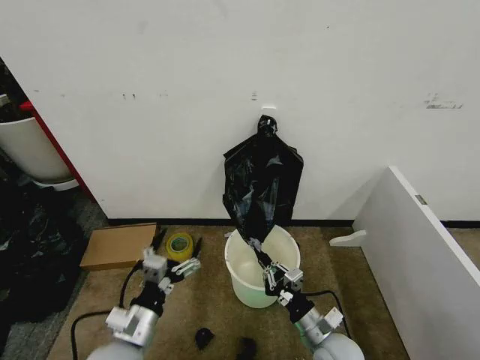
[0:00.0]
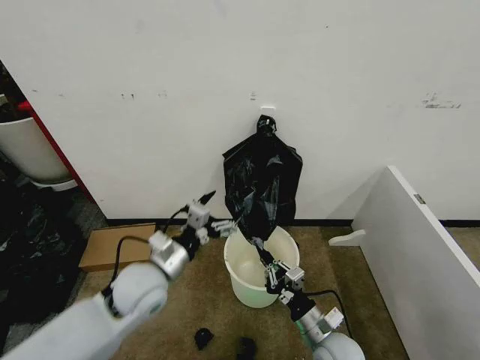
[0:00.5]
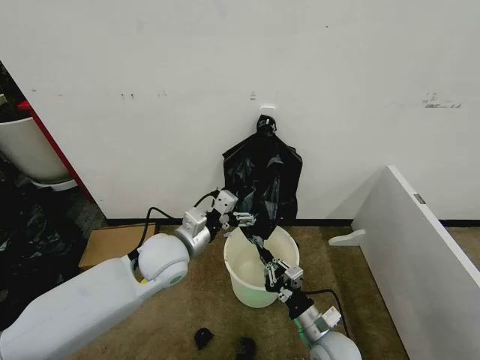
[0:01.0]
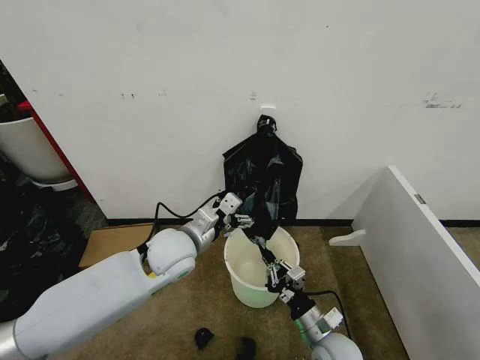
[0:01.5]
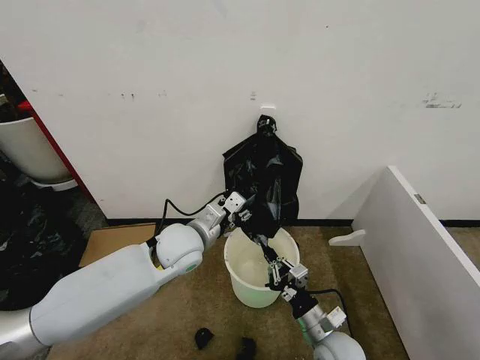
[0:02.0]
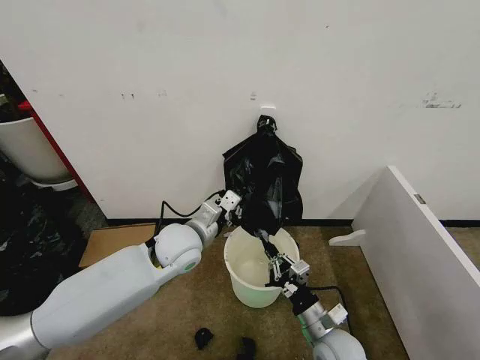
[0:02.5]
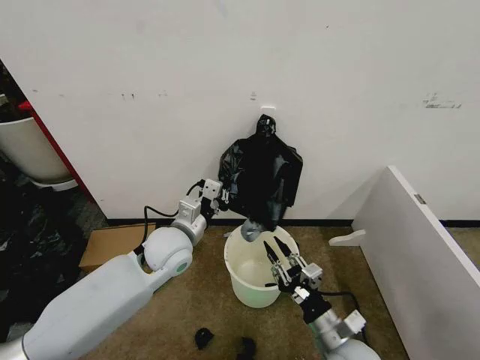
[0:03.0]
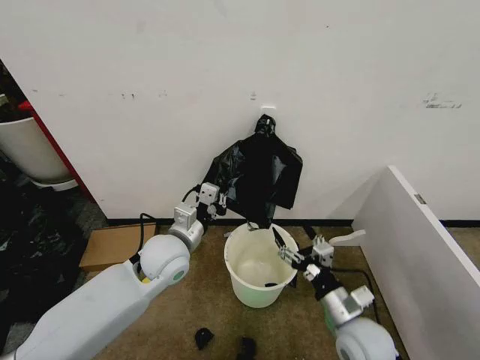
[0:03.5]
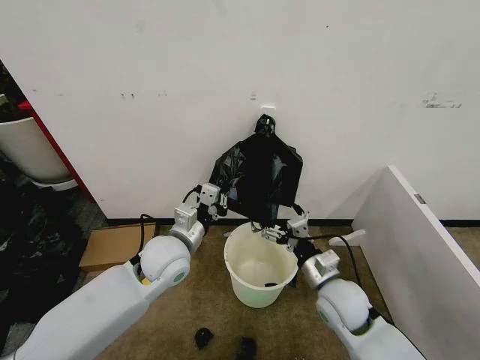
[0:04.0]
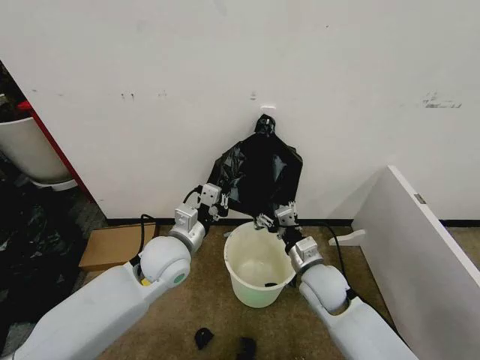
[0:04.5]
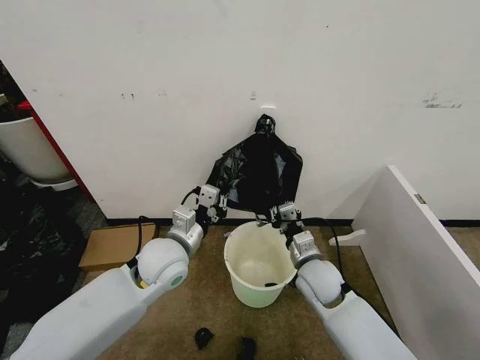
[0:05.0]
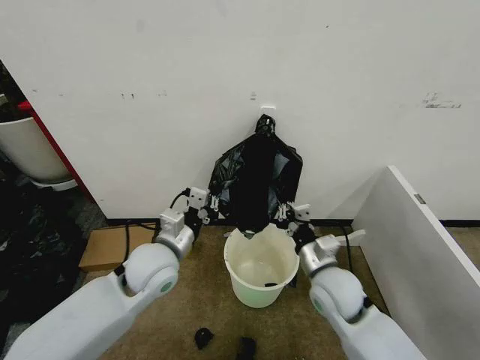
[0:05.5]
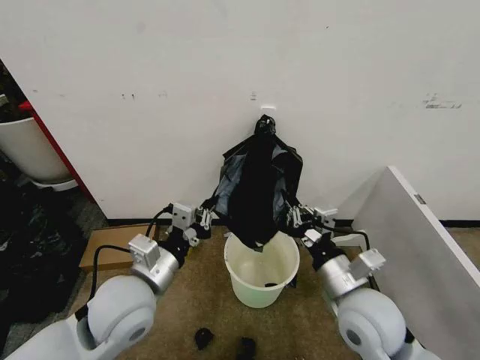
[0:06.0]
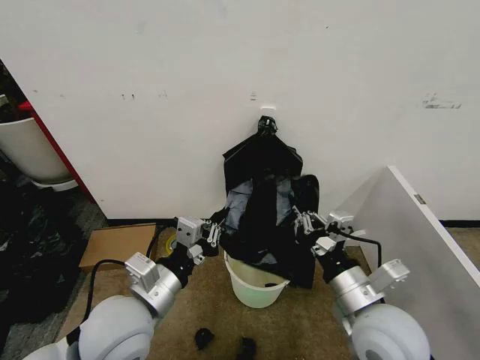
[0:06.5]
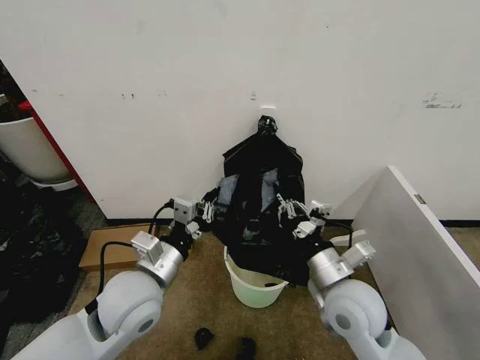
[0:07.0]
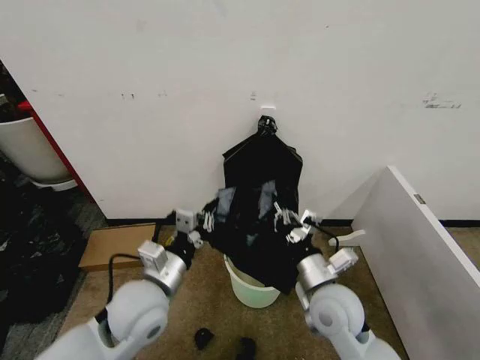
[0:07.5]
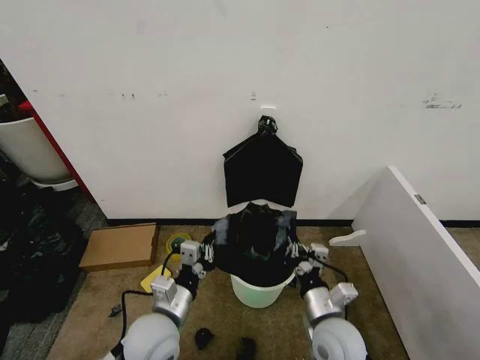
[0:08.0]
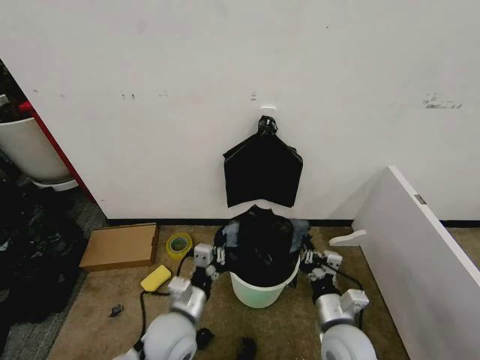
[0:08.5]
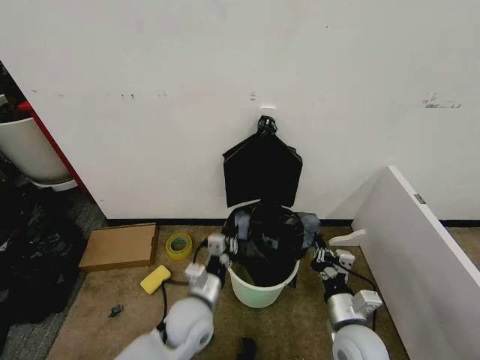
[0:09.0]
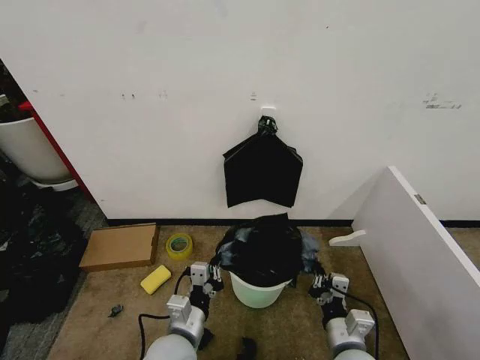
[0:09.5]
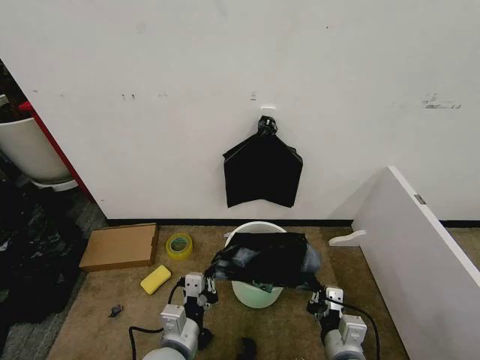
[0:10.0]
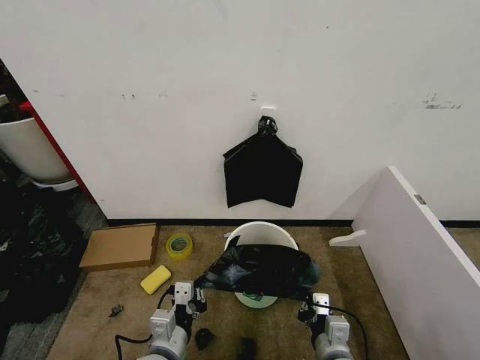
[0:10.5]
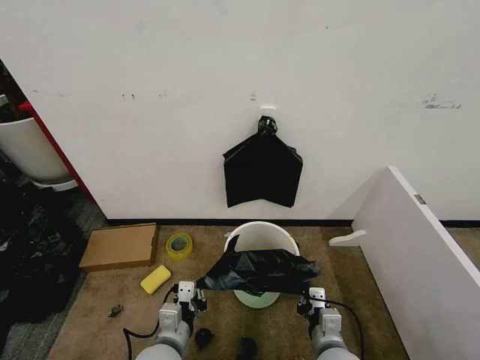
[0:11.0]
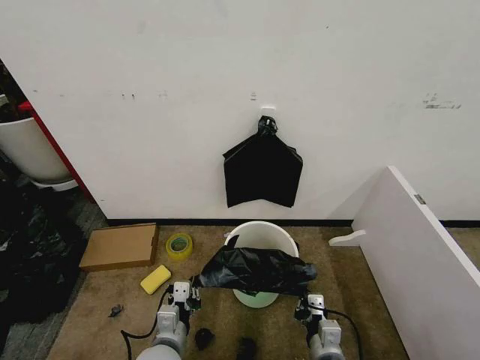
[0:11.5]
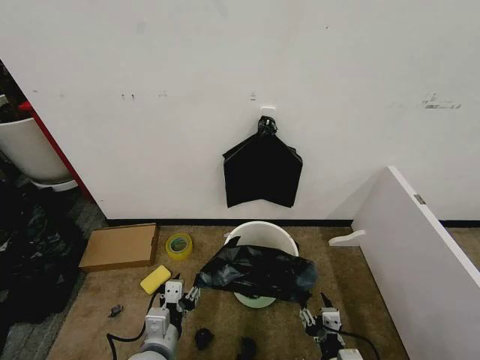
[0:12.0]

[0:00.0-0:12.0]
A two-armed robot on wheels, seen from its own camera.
Task of the whole recording: Place the garbage bag over the trash bin.
0:00.0 to 0:02.0: The left gripper travels forward and to the right by about 20 cm, and closes its fingers.
0:02.0 to 0:04.0: The left gripper closes up. The right gripper shifts about 10 cm upward and forward, and opens.
0:04.0 to 0:06.0: The right gripper moves upward, some 10 cm, and closes its fingers. The left gripper moves backward, about 10 cm.
0:06.0 to 0:08.0: The two grippers go roughly 10 cm downward.
0:08.0 to 0:10.0: The grippers both shift backward by some 5 cm.
0:10.0 to 0:12.0: The right gripper is displaced downward by approximately 5 cm, and opens its fingers; the left gripper opens.

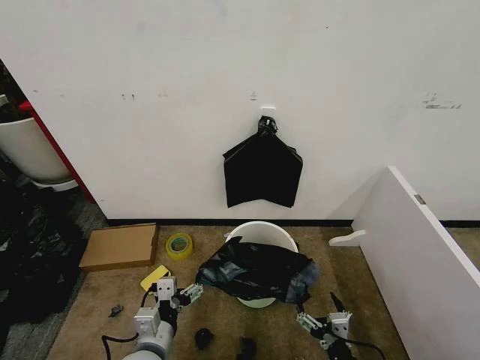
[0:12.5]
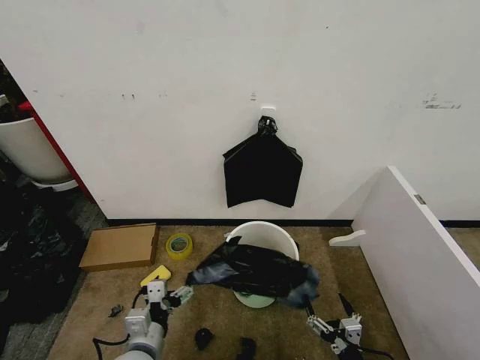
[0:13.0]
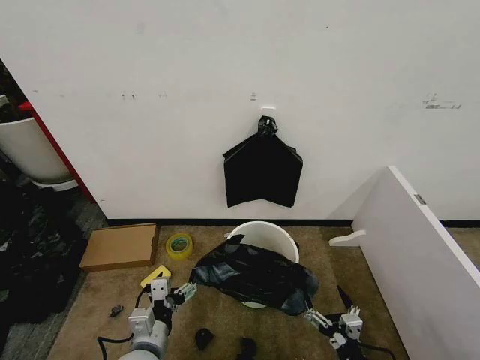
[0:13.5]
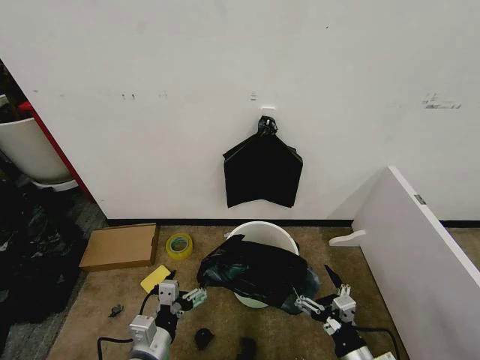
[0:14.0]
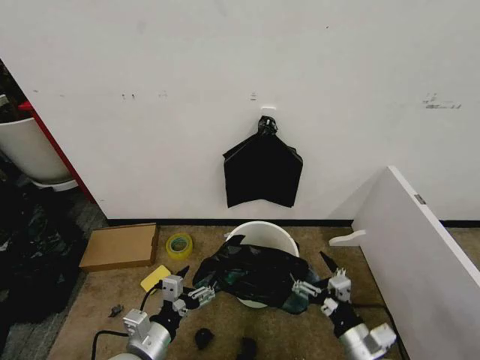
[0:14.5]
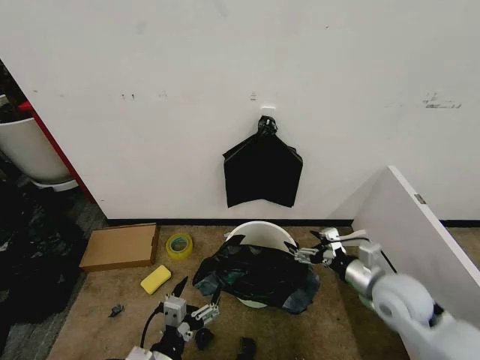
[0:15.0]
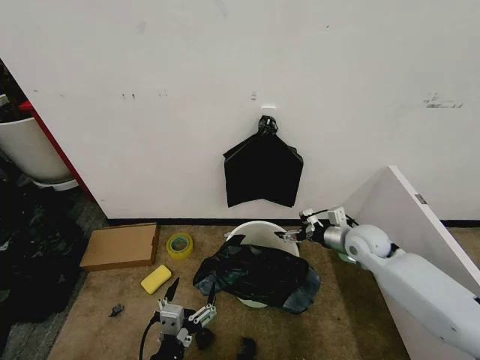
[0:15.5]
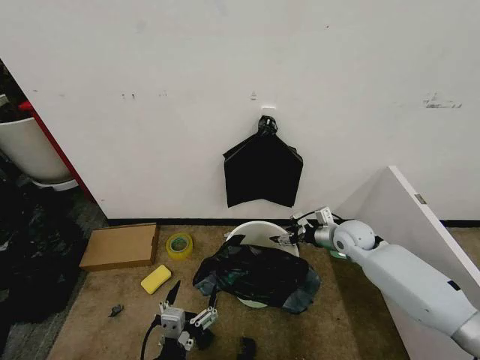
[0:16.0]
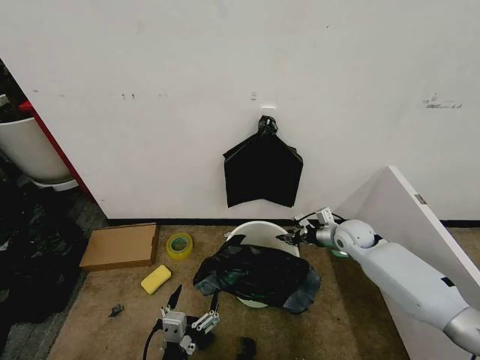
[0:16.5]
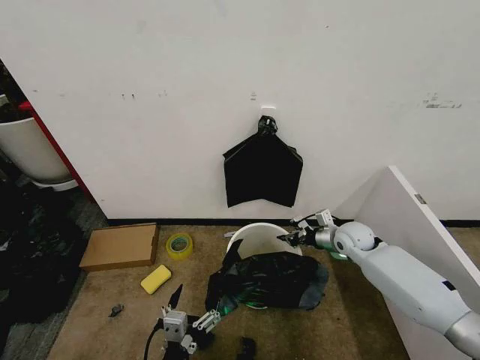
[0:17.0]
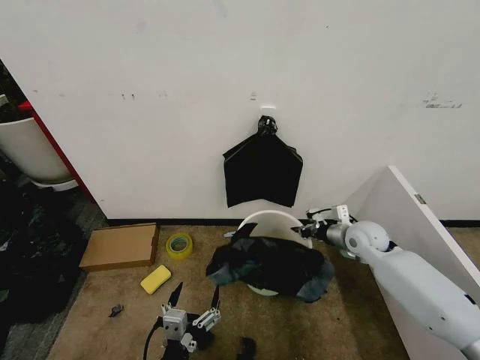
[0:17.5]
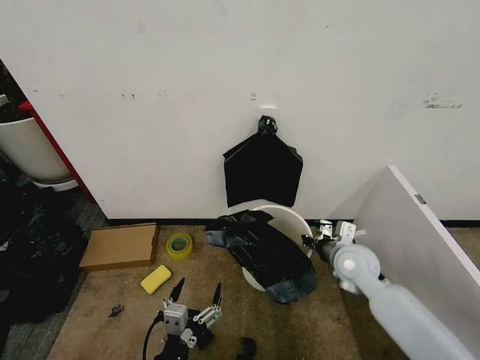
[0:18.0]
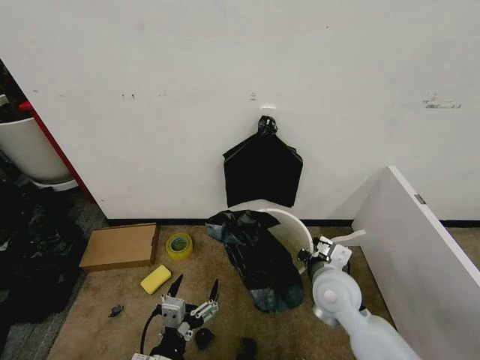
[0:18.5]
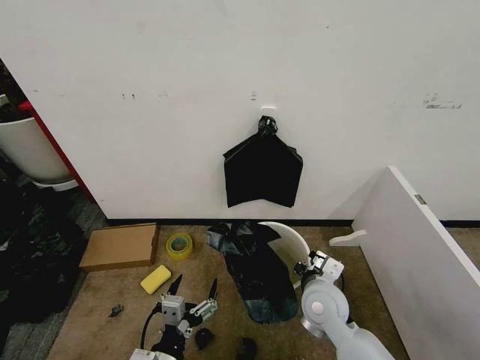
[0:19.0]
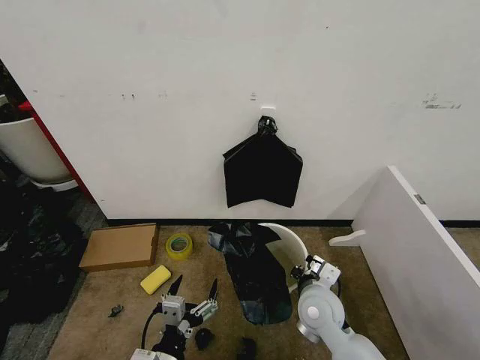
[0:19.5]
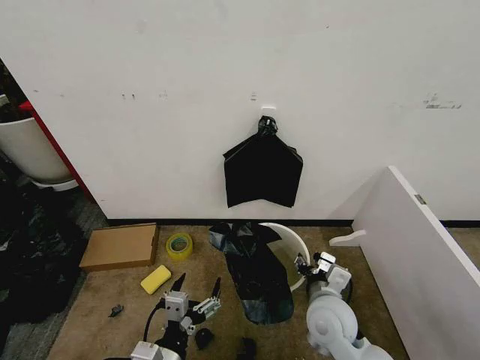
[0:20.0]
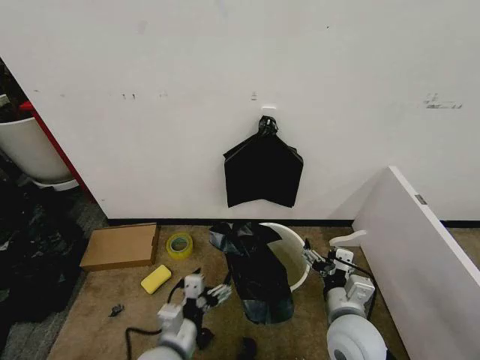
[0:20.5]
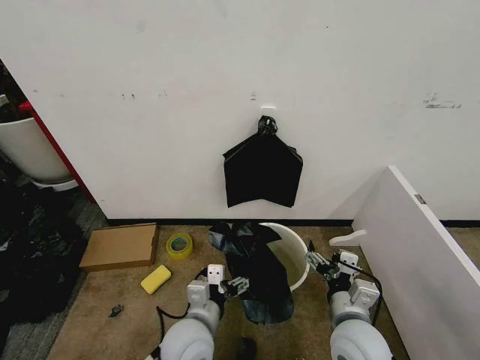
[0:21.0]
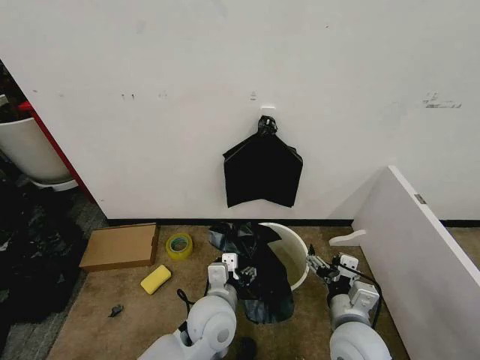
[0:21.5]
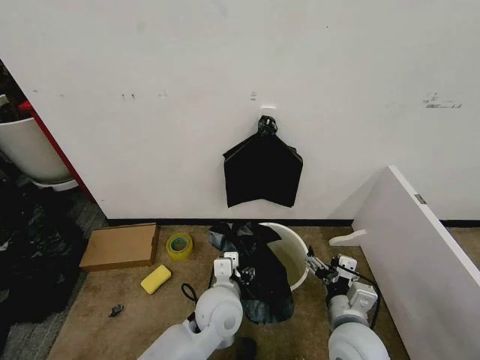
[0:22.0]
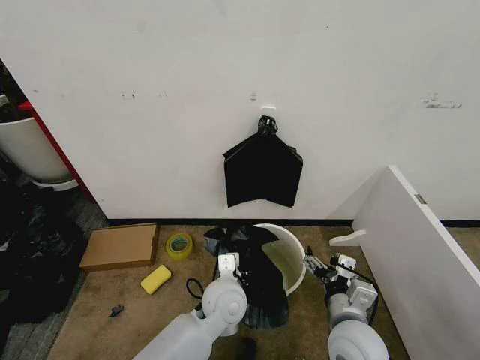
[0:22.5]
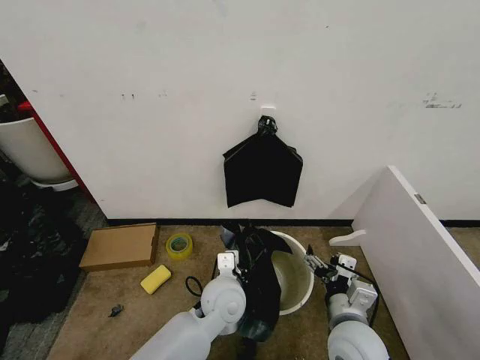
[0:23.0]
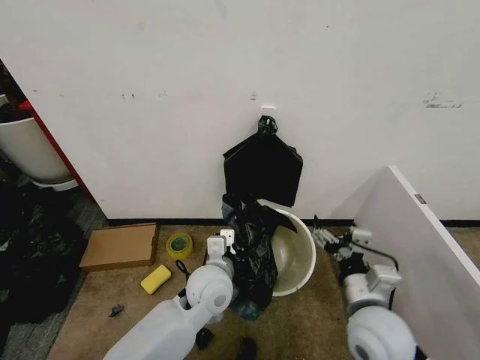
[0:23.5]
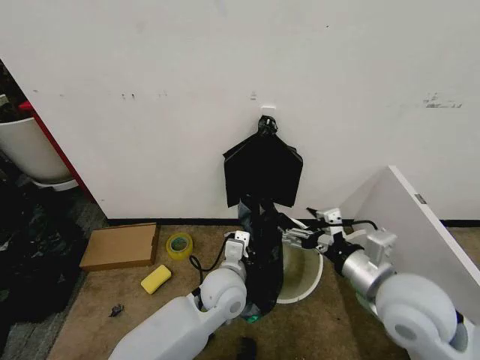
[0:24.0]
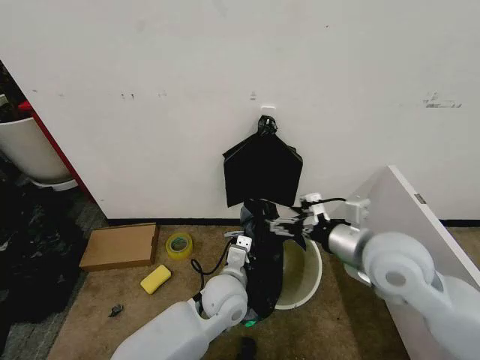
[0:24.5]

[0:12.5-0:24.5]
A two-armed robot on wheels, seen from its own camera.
Task of the whole recording: Place the garbage bag over the trash bin.
0:12.5 to 0:14.5: The right gripper shifts roughly 5 cm upward.
0:14.5 to 0:16.5: The left gripper is displaced backward and to the right by roughly 10 cm. Meanwhile the right gripper shifts some 35 cm forward, and closes its fingers.
0:16.5 to 0:18.5: The right gripper is displaced backward and to the left by roughly 20 cm.
0:18.5 to 0:20.5: The left gripper is displaced forward by some 5 cm, while the right gripper heads backward, covering some 10 cm, and opens its fingers.
0:20.5 to 0:22.5: The left gripper heads forward and to the right, covering approximately 20 cm, and closes.
0:22.5 to 0:24.5: The right gripper goes approximately 20 cm upward and forward.

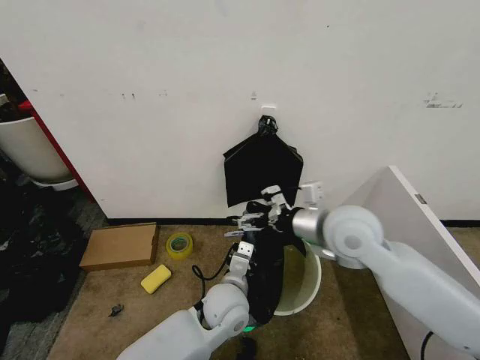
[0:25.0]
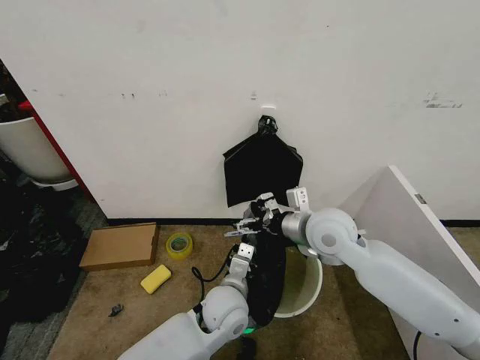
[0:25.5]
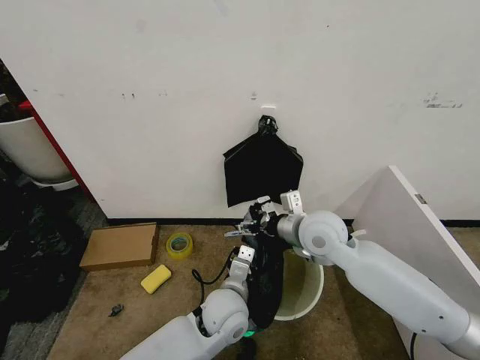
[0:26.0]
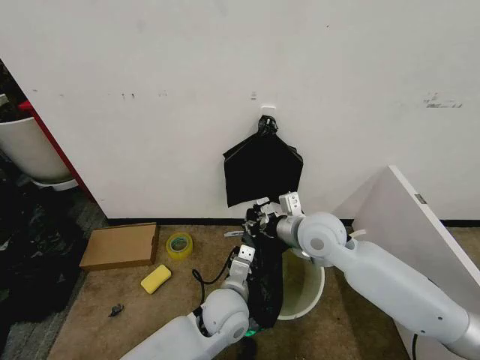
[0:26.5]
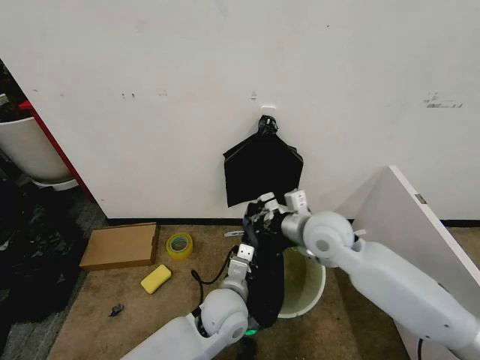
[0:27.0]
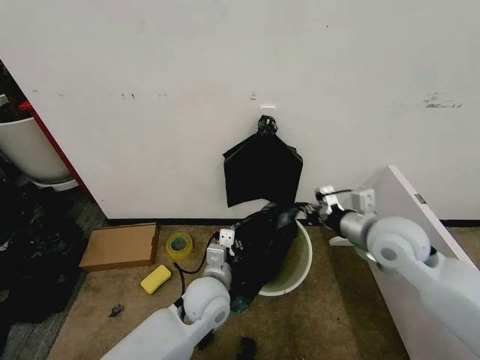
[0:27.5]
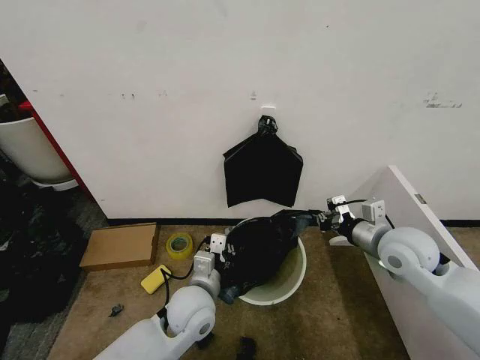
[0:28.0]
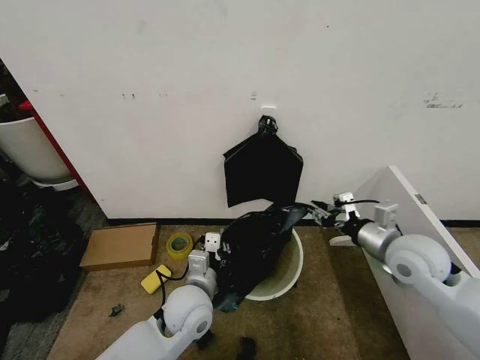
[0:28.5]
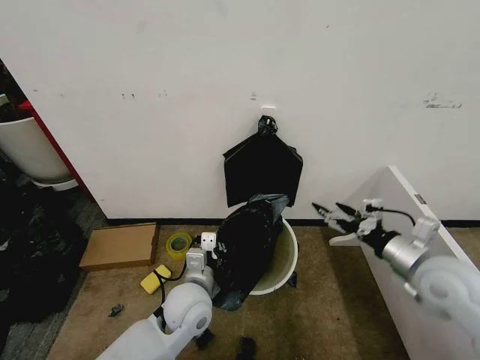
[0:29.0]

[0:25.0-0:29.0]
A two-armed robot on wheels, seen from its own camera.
Task of the whole recording: Place the garbage bag over the trash bin.
0:25.0 to 0:27.0: The right gripper ends up some 5 cm from where it was, and closes its fingers.
0:27.0 to 0:29.0: The left gripper goes about 5 cm to the left, while the right gripper travels to the right and backward by roughly 20 cm, and opens its fingers.
